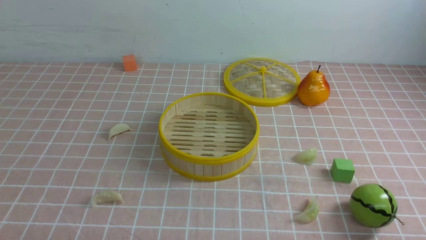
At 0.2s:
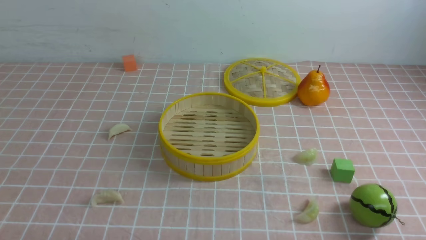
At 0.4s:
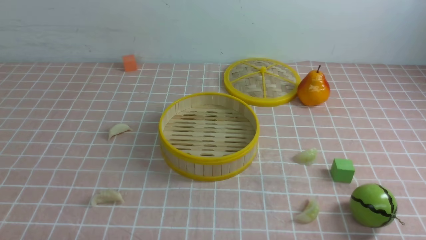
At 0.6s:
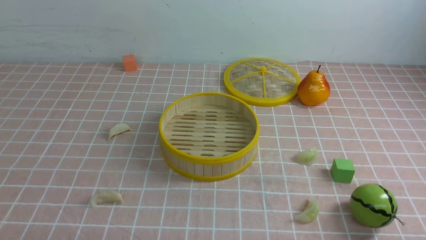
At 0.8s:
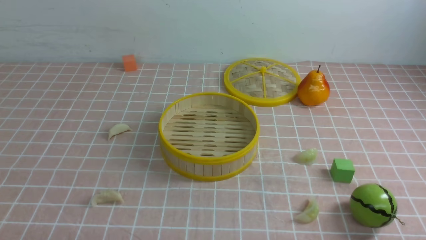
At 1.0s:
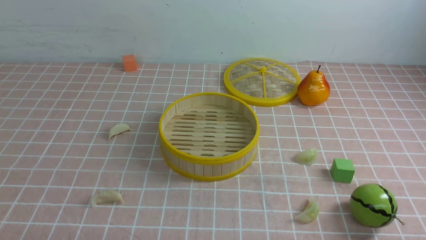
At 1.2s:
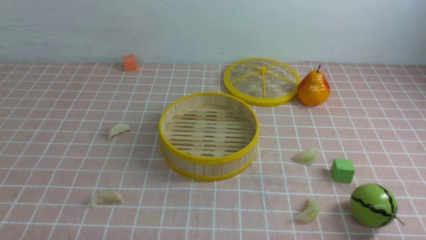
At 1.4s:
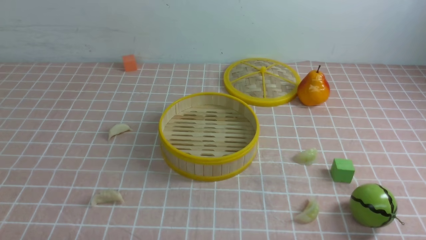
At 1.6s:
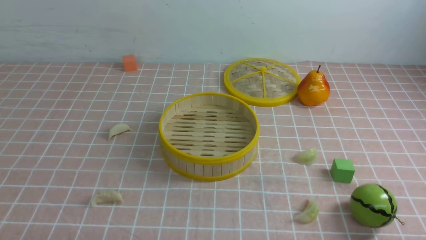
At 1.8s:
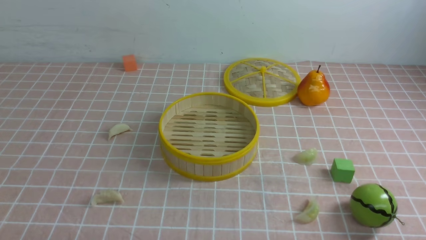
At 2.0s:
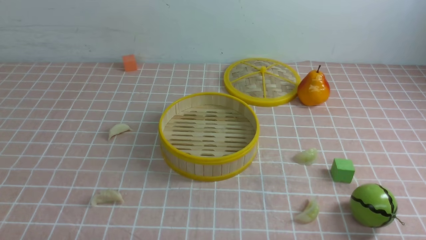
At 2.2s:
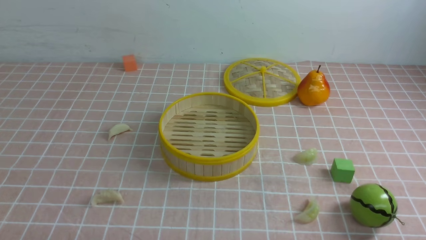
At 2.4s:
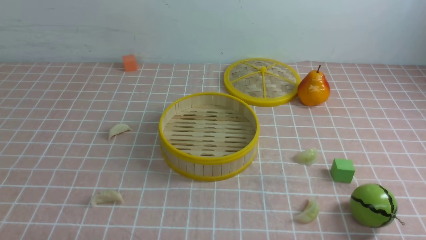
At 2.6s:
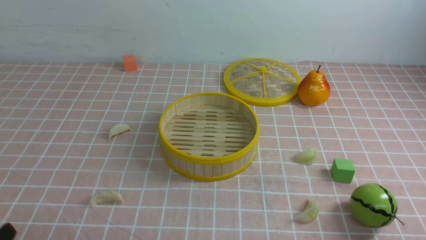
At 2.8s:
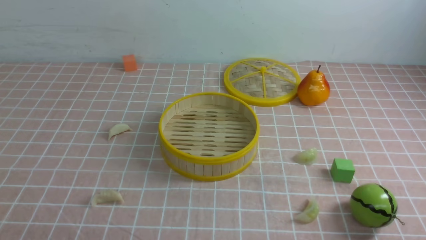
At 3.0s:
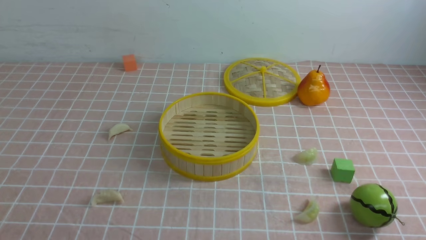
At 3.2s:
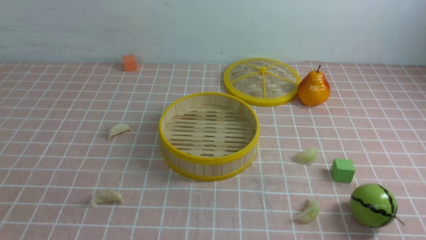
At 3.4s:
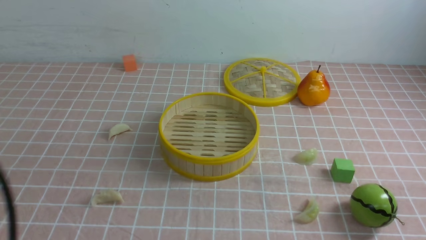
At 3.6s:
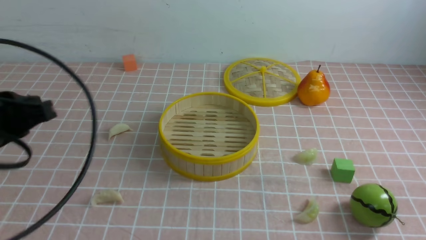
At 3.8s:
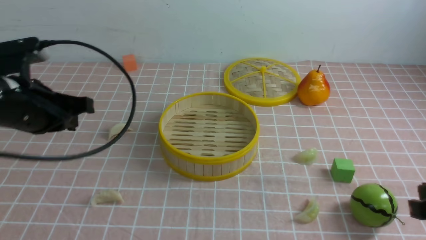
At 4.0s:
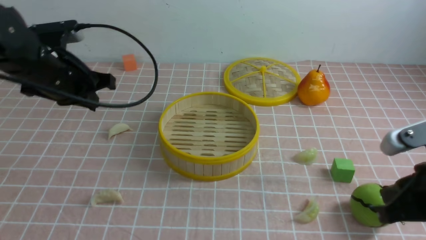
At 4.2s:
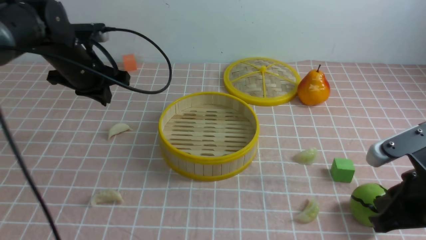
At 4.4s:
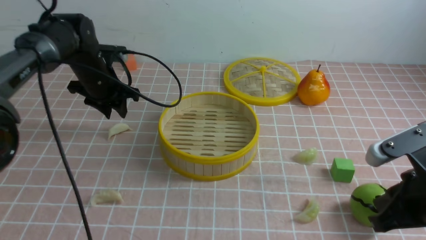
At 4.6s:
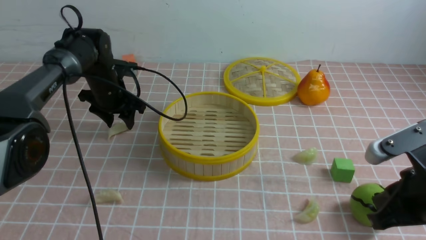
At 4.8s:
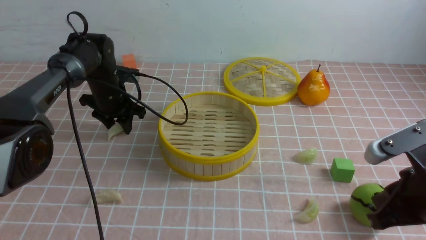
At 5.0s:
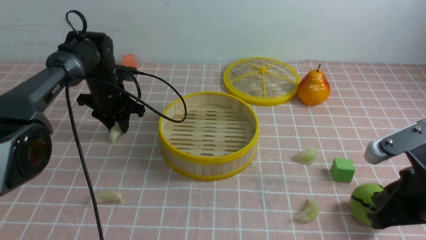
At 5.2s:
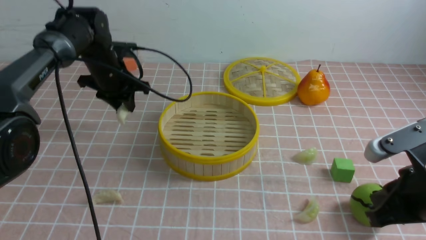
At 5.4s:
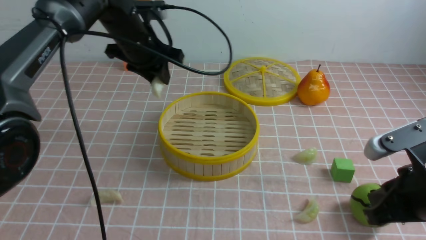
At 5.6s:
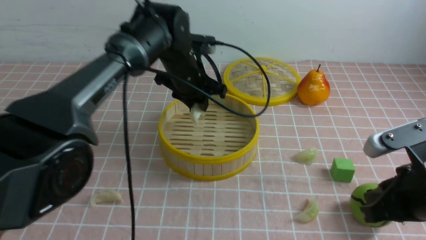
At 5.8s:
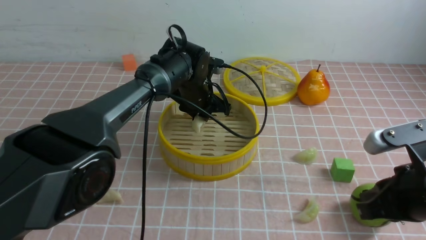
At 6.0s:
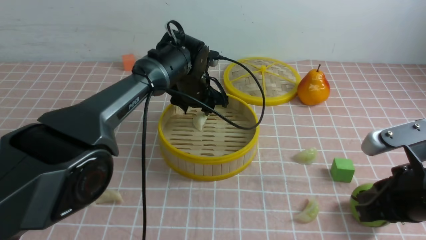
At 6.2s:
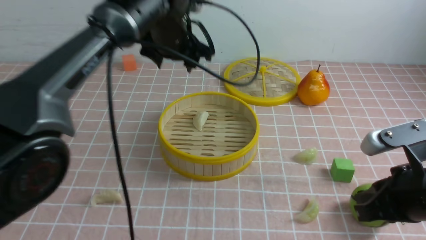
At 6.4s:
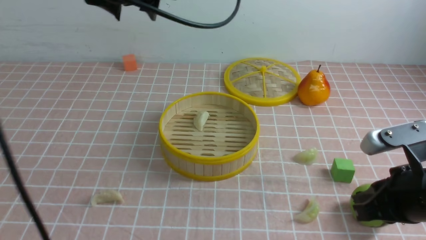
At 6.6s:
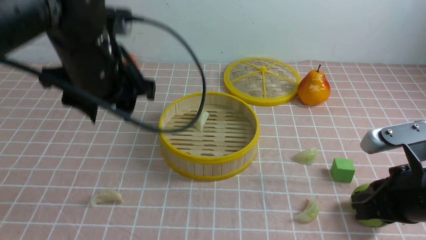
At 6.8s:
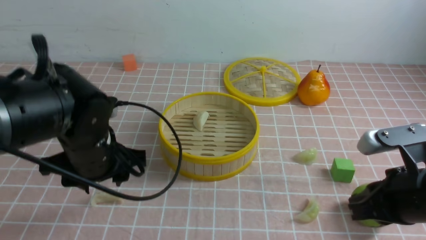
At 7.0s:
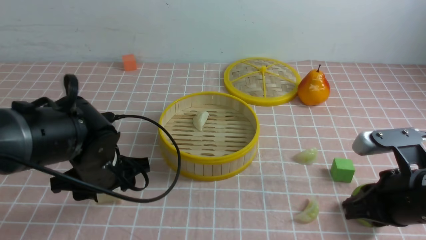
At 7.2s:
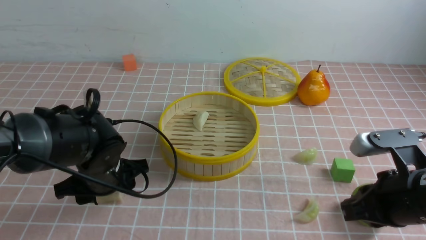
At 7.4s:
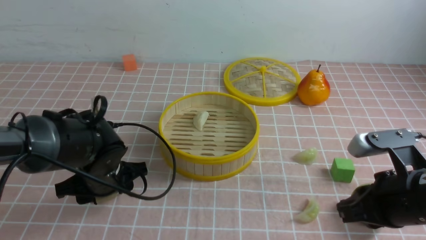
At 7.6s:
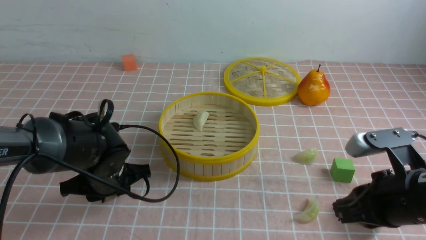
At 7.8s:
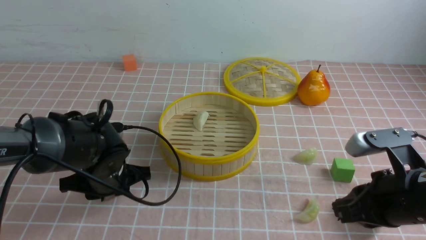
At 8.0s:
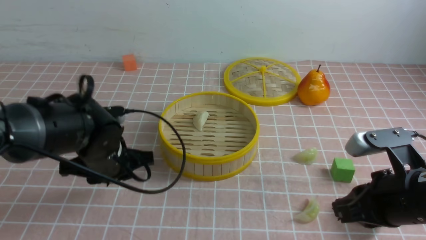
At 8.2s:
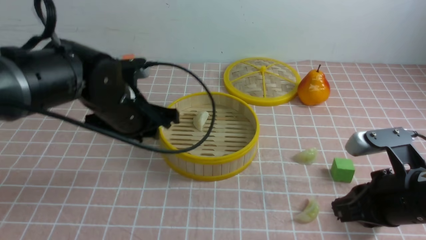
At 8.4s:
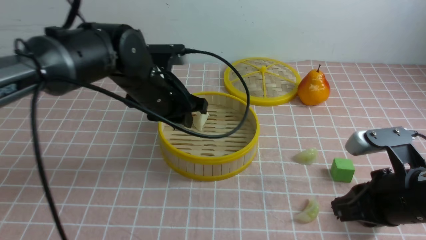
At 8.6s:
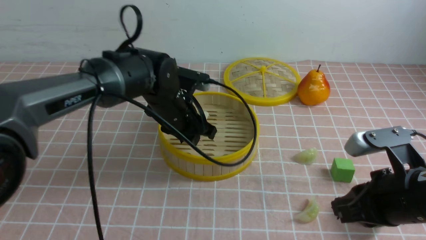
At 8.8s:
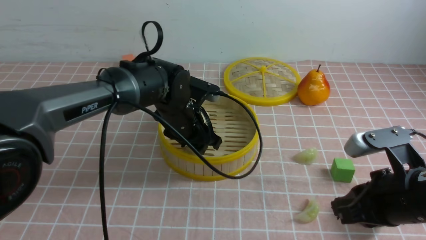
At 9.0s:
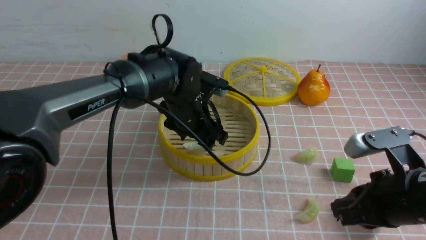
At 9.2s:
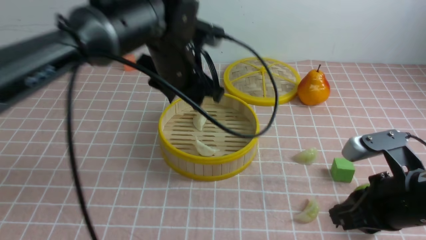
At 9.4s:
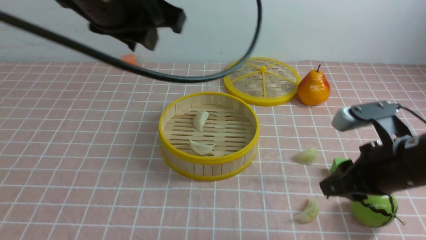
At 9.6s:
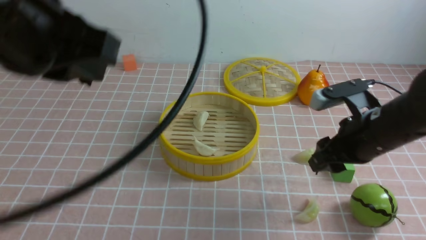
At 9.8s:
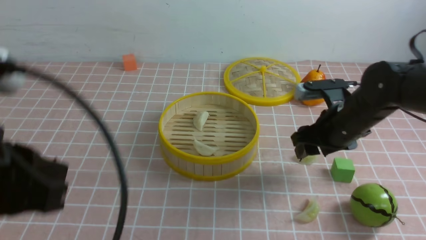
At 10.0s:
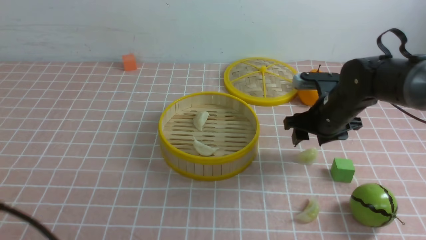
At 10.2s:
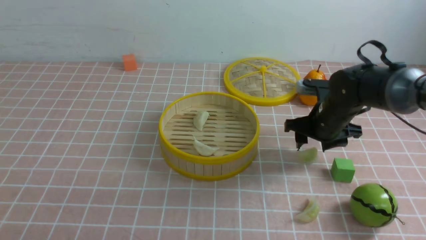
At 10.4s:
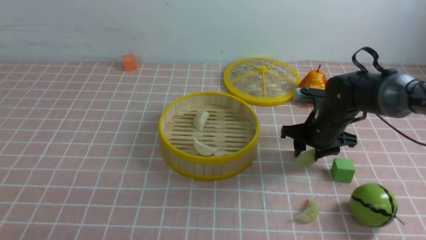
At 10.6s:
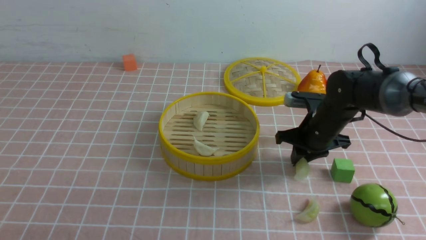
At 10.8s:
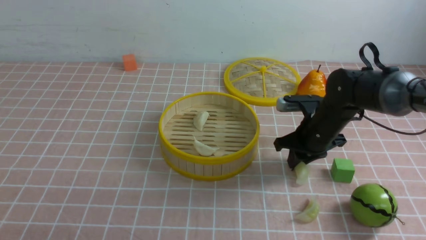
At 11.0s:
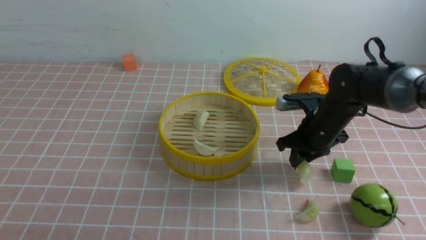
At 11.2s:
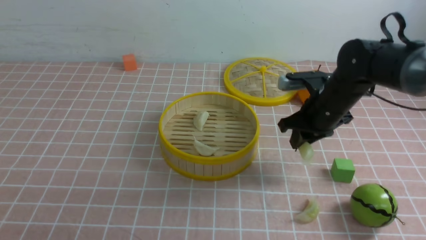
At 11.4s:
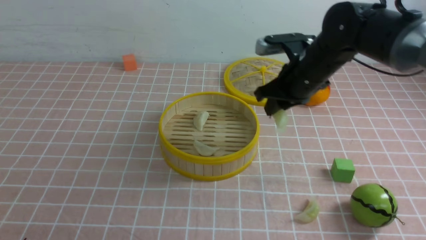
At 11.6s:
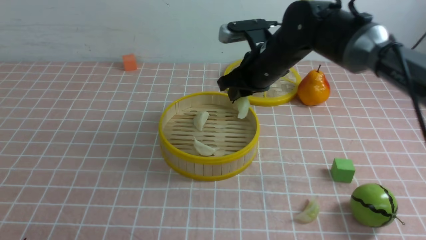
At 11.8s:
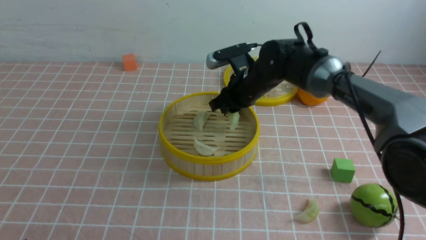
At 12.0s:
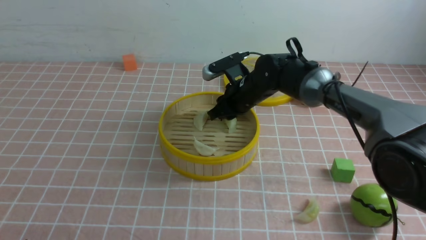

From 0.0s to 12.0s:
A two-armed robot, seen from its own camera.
Task of the whole recording: put the dumplings into the steamer on the table with the pink tablecloth.
Step, from 0.0s to 5.0s: use the left arm to grab a dumpling.
Step, from 5.2s to 5.8s: use the left arm to put the dumpling into the steamer.
Step, from 6.0s to 7.8s: use the left arm to grab a dumpling.
Step, from 8.2s to 8.8s: use the left arm to put the dumpling into the steamer.
Step, from 9.0s to 11.0s: use the right arm to grab a dumpling.
From 0.0s to 1.6s: Neither gripper changes place.
From 3.0s to 4.4s: The right gripper moves forward, approximately 15 cm. The left gripper goes some 40 cm forward, and closes, then opens again.
From 4.4s to 6.0s: The left gripper moves to the right, approximately 15 cm.
From 6.0s to 7.6s: The left gripper shifts about 25 cm backward, to the left and downward.
From 7.6s to 9.0s: The left gripper travels to the right, upward and forward by some 15 cm, and opens its fingers.
From 9.0s to 10.4s: The left gripper shifts approximately 40 cm backward and to the left, and closes its fingers. Meanwhile the right gripper goes some 20 cm forward, and opens.
From 10.4s to 12.0s: The right gripper goes roughly 15 cm to the left and forward.

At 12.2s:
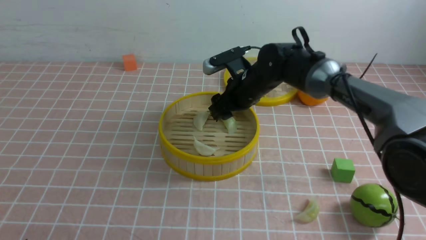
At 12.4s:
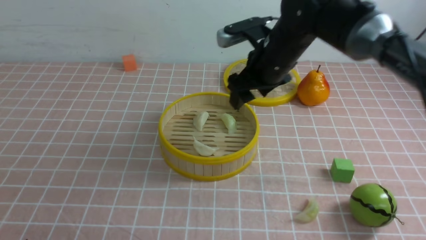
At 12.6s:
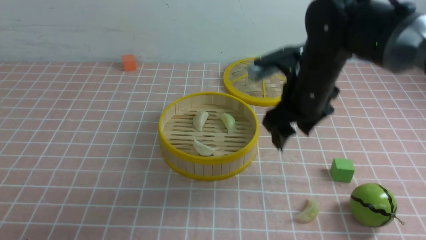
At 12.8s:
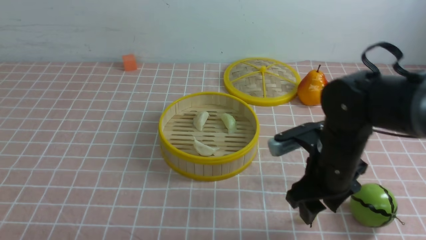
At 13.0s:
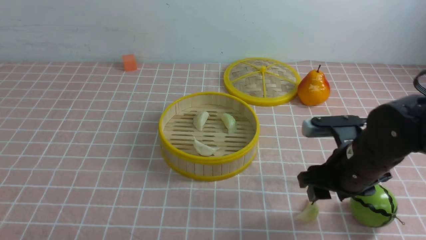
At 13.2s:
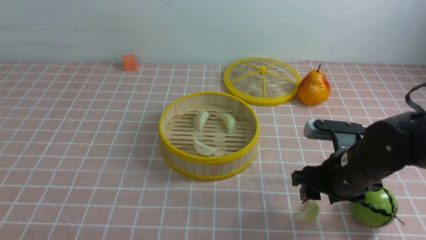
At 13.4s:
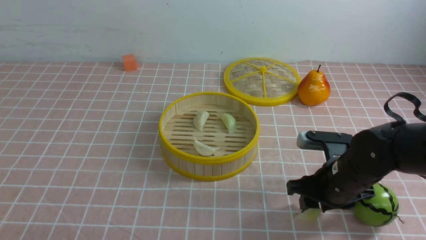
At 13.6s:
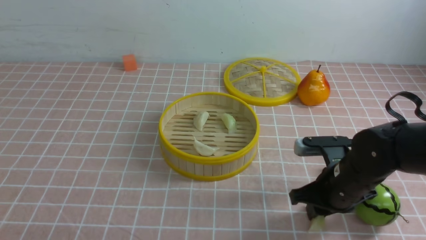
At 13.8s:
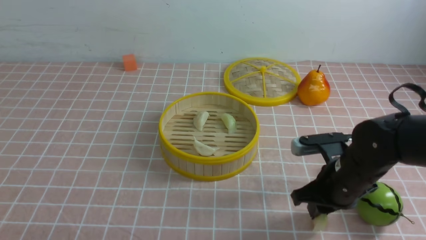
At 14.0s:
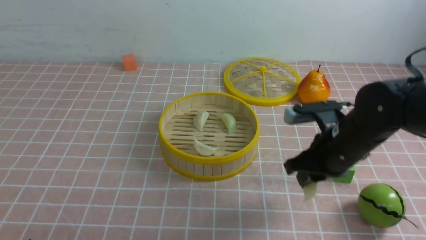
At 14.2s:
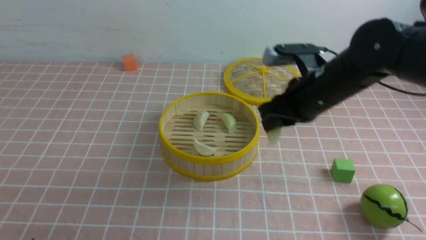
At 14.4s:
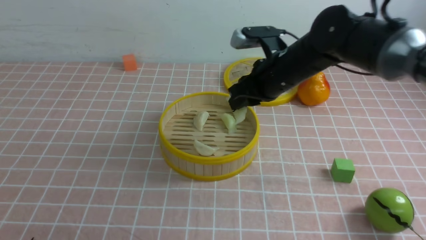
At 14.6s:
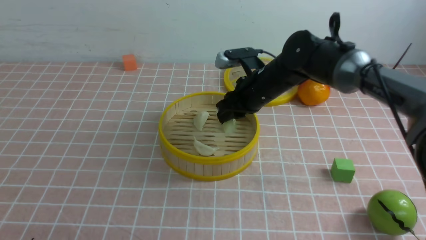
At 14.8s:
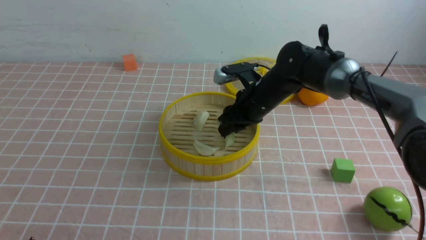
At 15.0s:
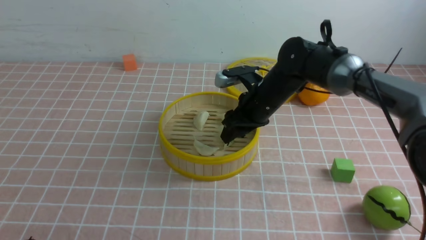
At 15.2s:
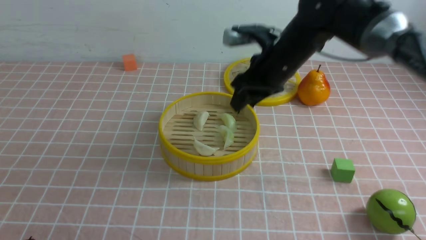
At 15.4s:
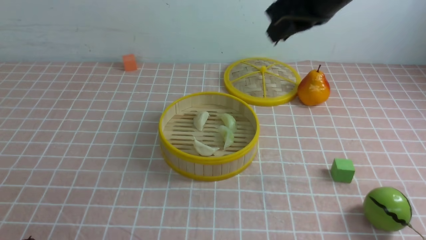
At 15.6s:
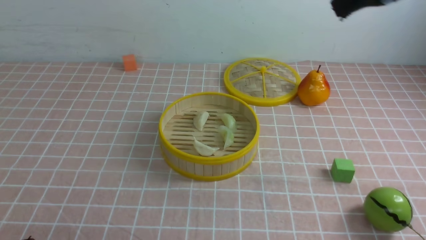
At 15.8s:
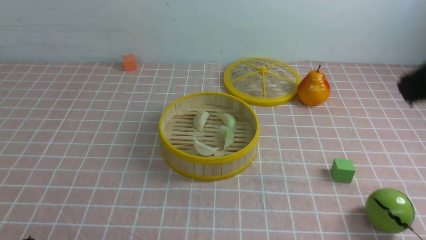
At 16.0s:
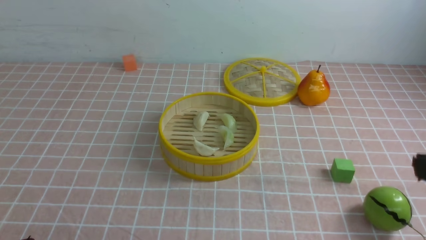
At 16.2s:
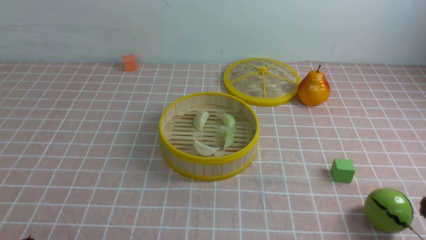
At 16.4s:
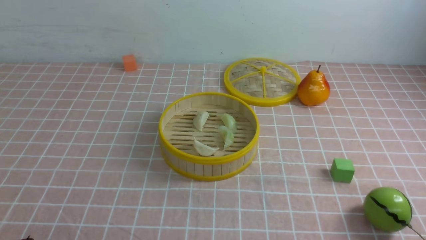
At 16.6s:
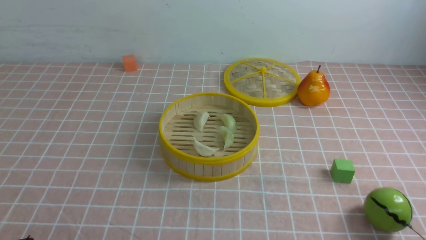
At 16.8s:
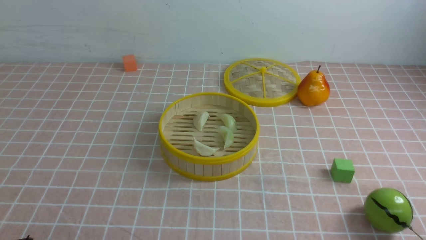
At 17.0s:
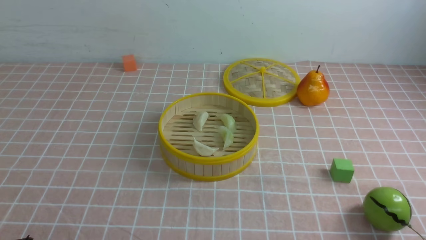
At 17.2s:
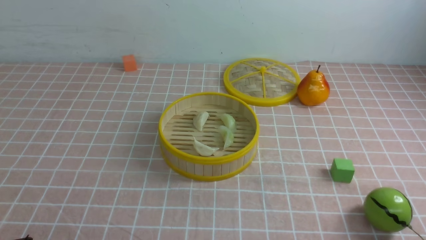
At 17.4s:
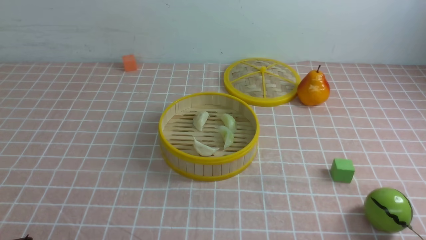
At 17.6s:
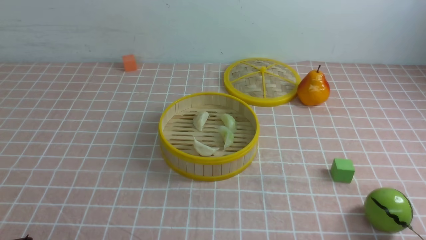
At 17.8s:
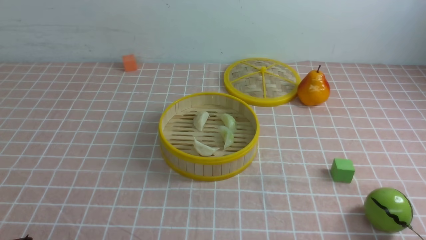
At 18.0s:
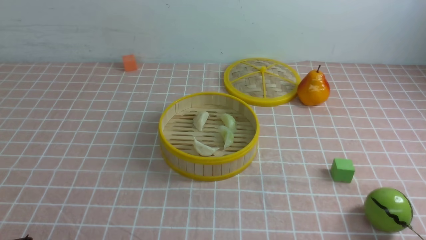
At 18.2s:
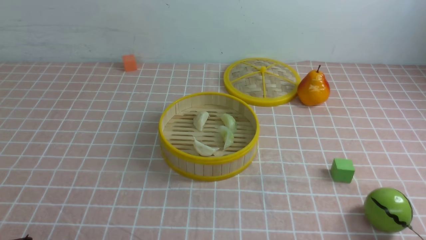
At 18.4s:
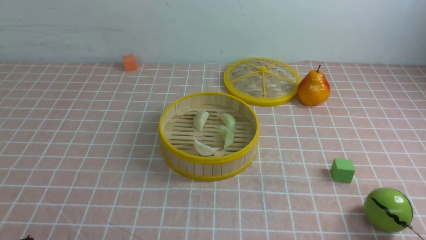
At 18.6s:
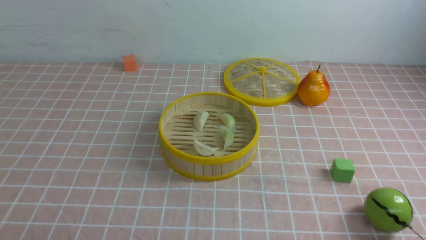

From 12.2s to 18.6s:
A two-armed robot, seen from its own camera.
Task of the whole recording: put the dumplings into the steamer on the table with the pink tablecloth.
Step, from 12.4s to 13.8s: use the right arm to grab a dumpling.
Step, from 14.0s to 15.0s: use the right arm to put the dumpling into the steamer.
From 12.2s to 13.8s: The right gripper is displaced backward and to the right by about 20 cm, and closes up.
From 13.8s to 15.4s: The right gripper goes up and down, about 25 cm each way, reversing 2 times, and opens, then closes again.
From 15.4s to 17.0s: The right gripper goes some 40 cm backward, downward and to the right.
